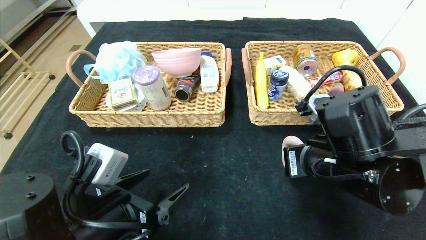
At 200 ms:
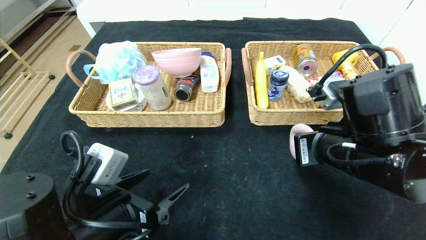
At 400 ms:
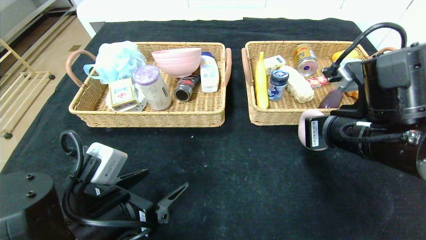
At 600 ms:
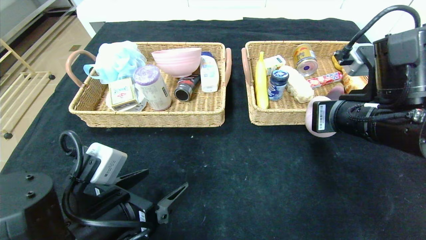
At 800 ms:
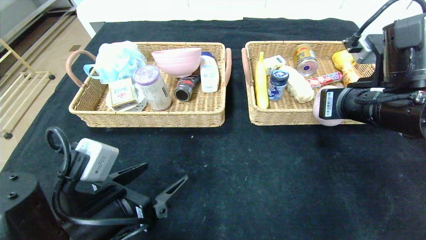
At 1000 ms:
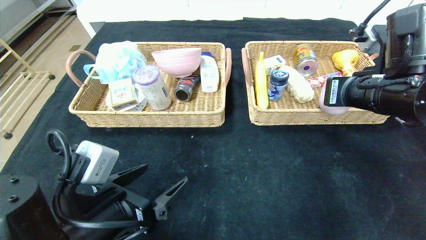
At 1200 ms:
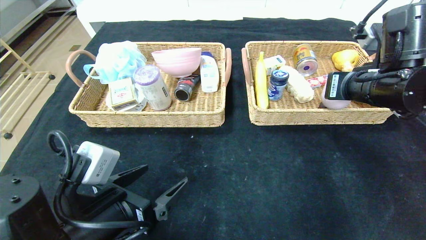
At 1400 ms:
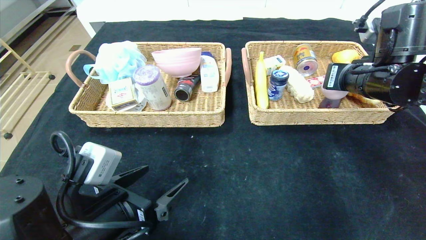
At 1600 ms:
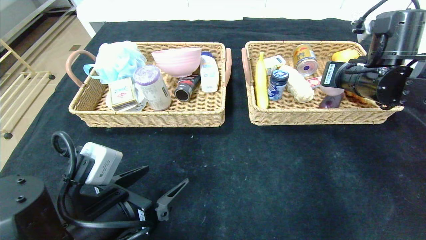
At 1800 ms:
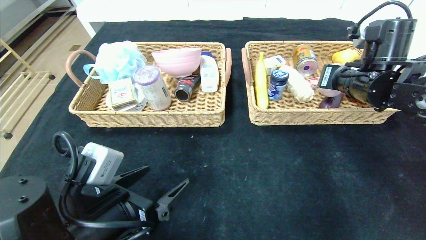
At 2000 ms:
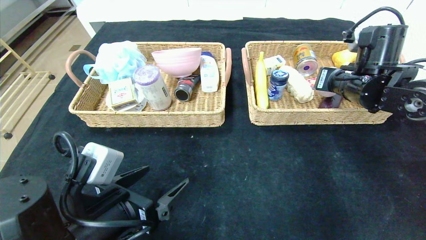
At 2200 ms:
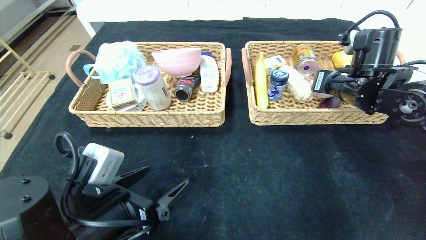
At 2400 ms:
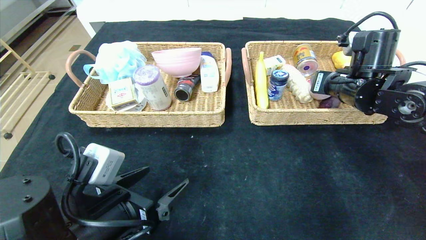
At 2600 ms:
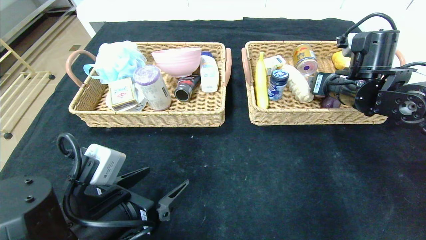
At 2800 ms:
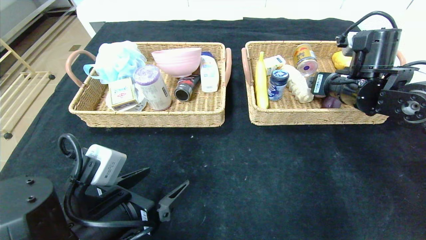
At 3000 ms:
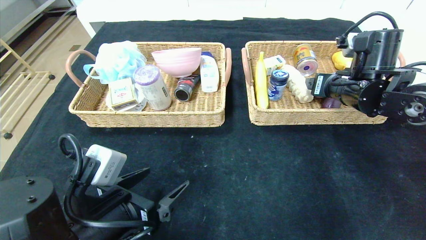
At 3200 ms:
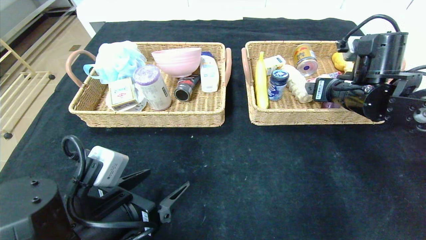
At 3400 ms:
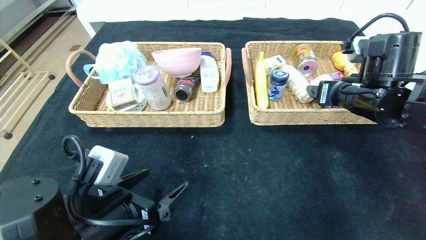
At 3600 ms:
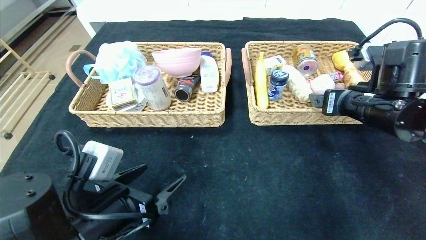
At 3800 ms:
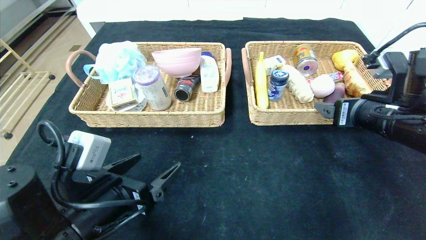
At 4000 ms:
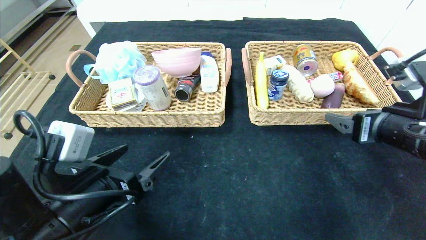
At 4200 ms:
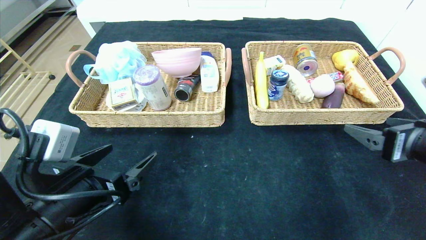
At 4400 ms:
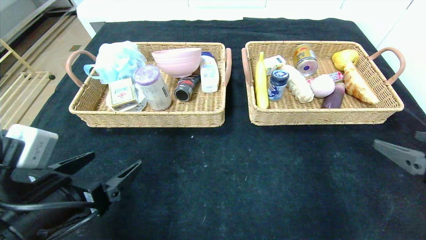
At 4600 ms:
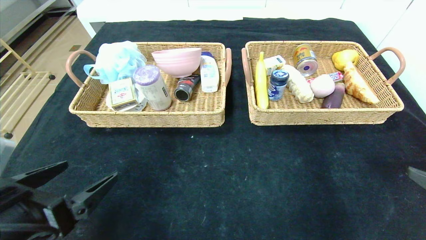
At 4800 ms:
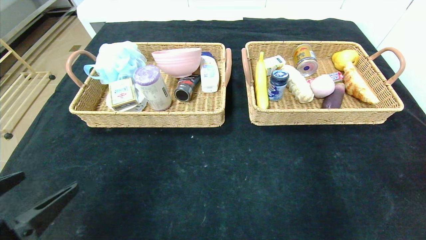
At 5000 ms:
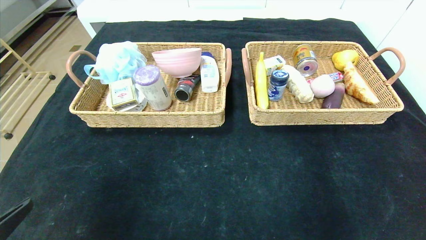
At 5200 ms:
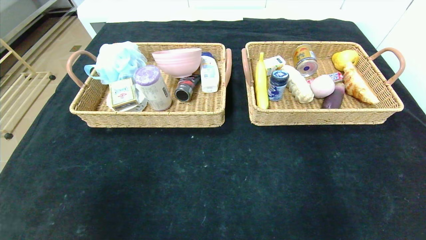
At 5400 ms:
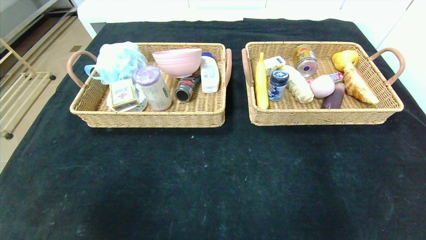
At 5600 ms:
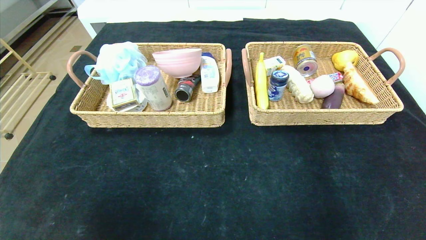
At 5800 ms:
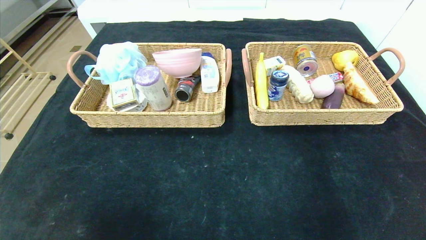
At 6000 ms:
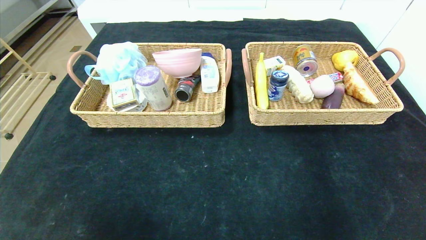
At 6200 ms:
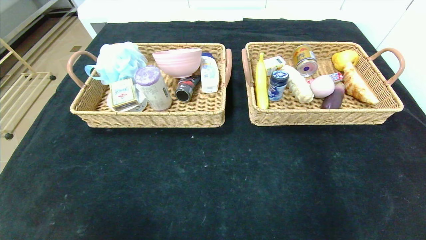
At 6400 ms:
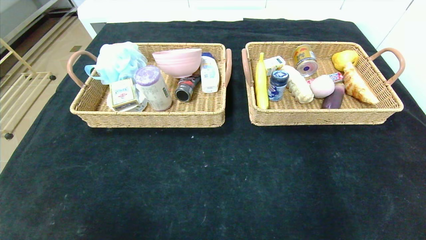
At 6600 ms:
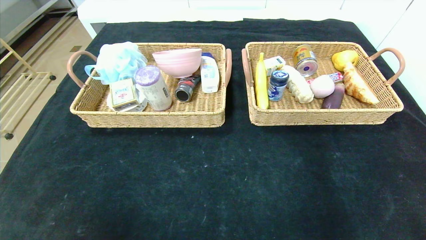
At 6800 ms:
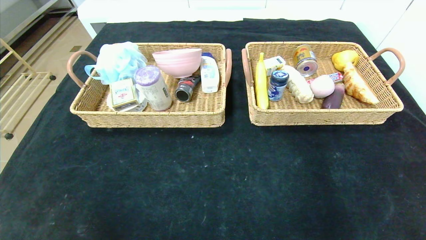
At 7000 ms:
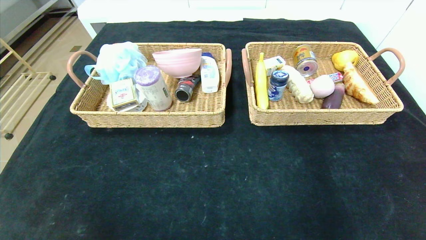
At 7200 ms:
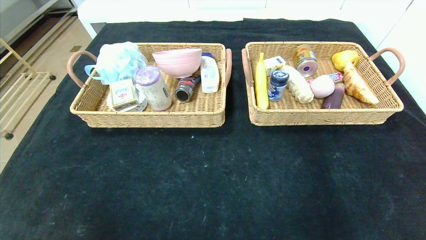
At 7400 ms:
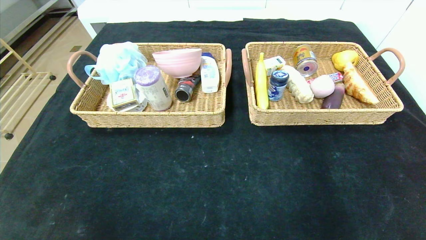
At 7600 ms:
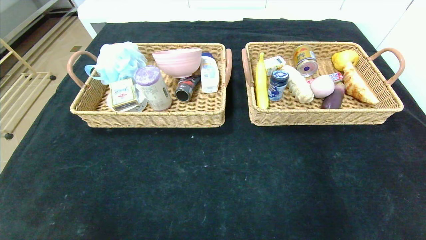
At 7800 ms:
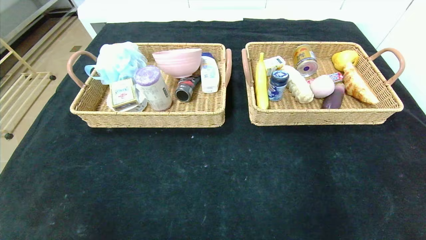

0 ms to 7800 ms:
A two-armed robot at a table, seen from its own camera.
Step, 0 ms to 2800 ms: Grasp the peach and put it in the right basket.
0 ms to 1600 ms: The right gripper is displaced forward, to the right and upward by approximately 15 cm.
1600 ms to 3200 ms: The right gripper opens up.
3200 ms to 4600 ms: The right gripper moves backward, roughly 25 cm. The left gripper shifts approximately 5 cm to the left.
4600 ms to 6200 ms: The left gripper is displaced backward by some 15 cm. The right gripper travels backward and downward by roughly 20 cm.

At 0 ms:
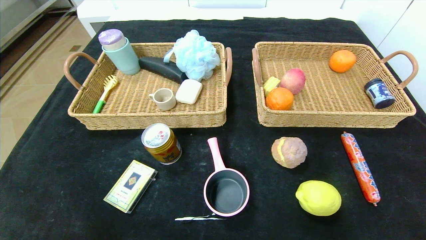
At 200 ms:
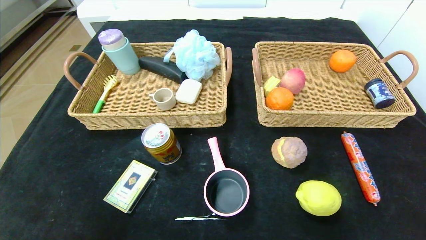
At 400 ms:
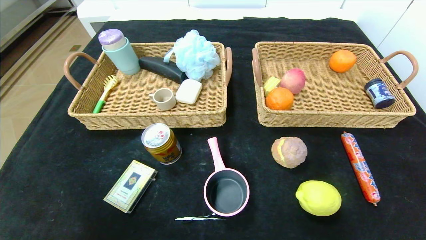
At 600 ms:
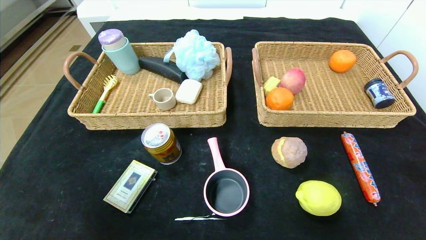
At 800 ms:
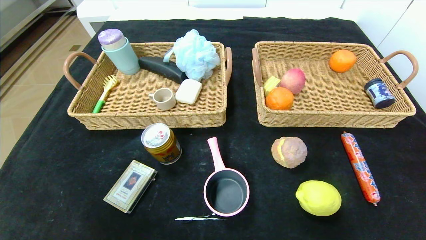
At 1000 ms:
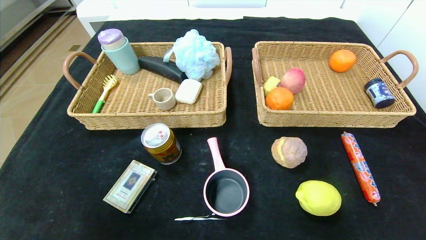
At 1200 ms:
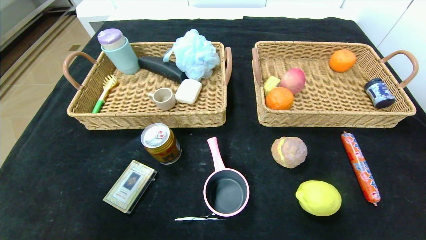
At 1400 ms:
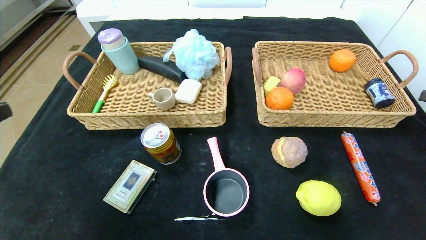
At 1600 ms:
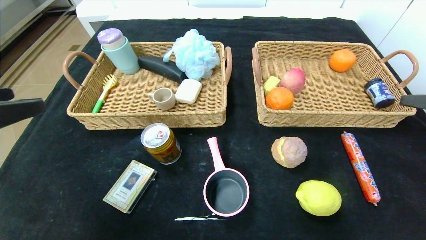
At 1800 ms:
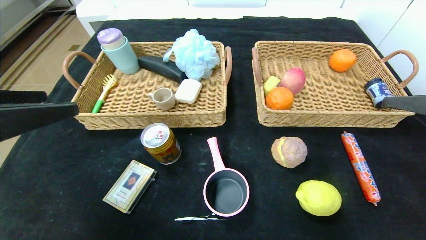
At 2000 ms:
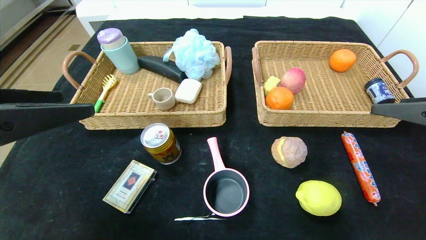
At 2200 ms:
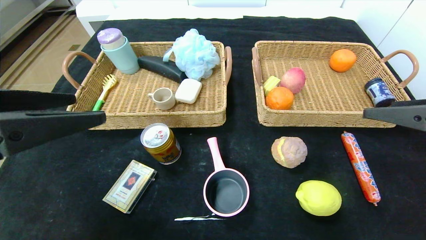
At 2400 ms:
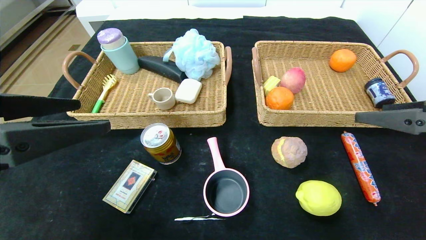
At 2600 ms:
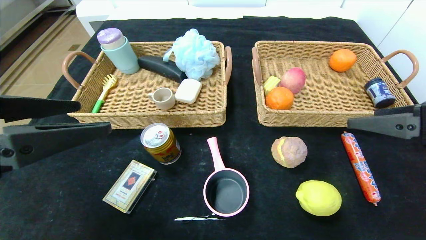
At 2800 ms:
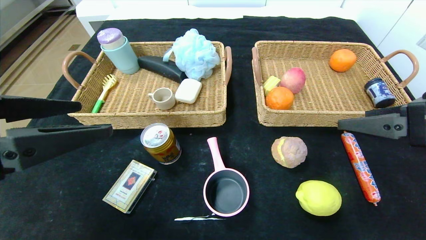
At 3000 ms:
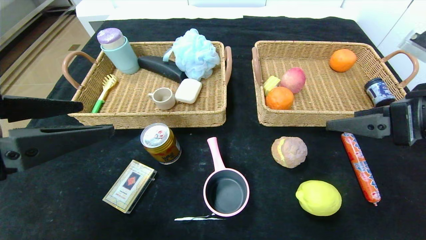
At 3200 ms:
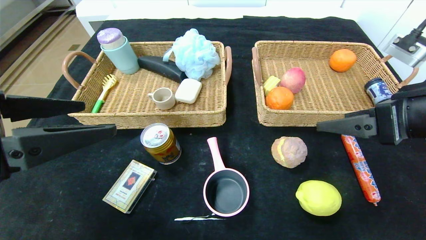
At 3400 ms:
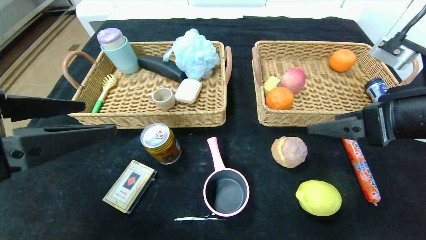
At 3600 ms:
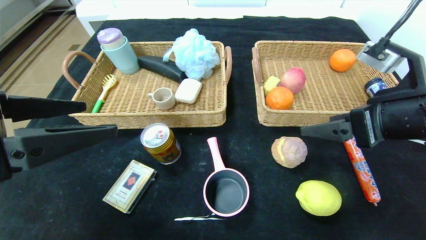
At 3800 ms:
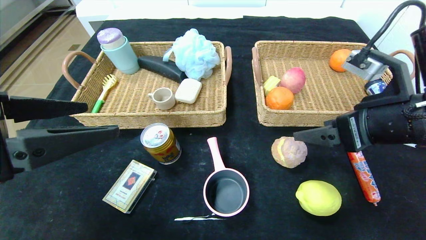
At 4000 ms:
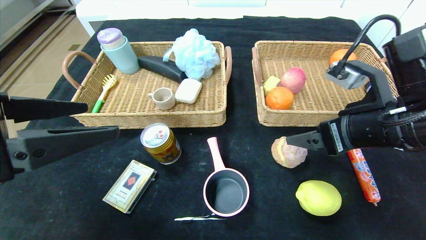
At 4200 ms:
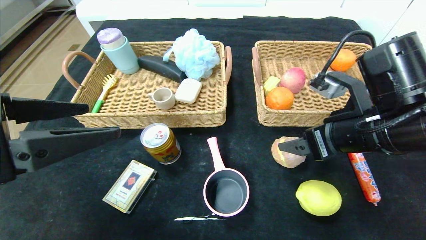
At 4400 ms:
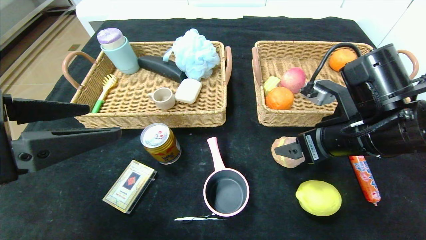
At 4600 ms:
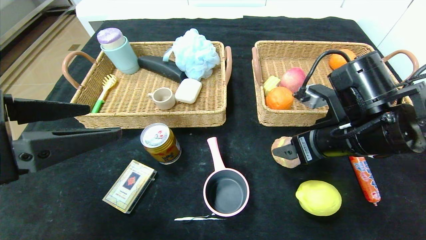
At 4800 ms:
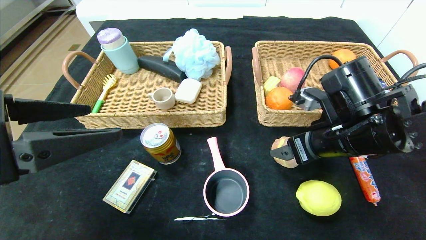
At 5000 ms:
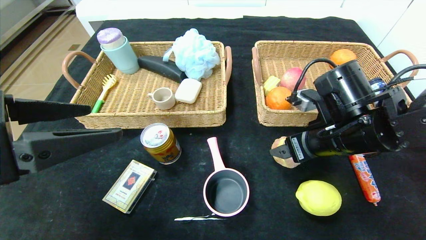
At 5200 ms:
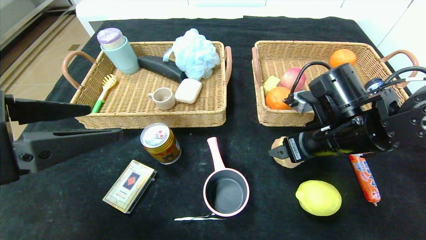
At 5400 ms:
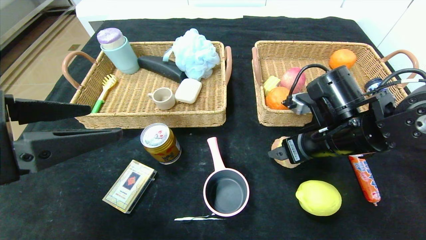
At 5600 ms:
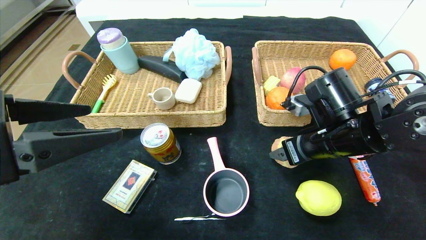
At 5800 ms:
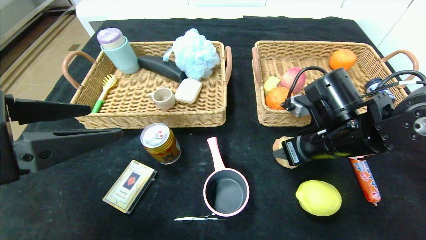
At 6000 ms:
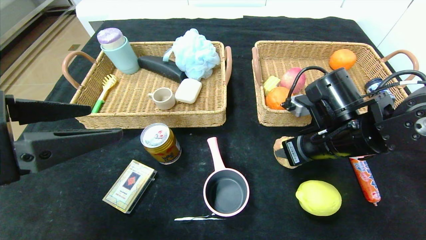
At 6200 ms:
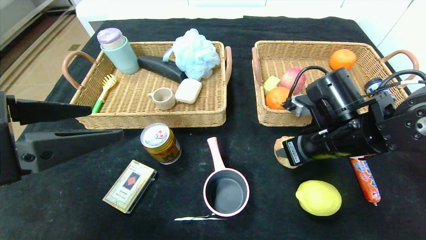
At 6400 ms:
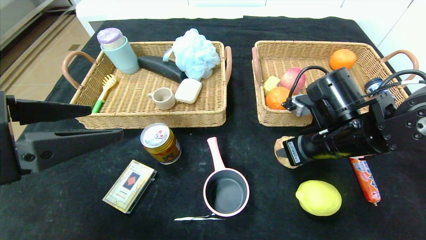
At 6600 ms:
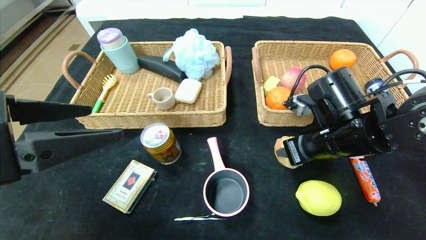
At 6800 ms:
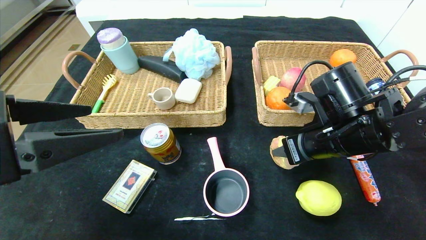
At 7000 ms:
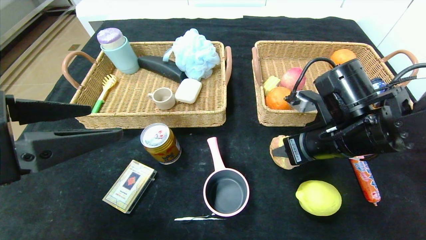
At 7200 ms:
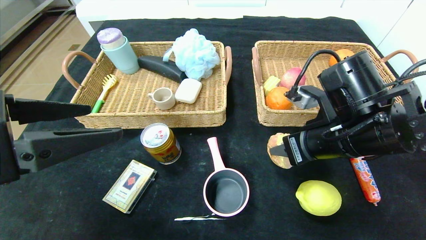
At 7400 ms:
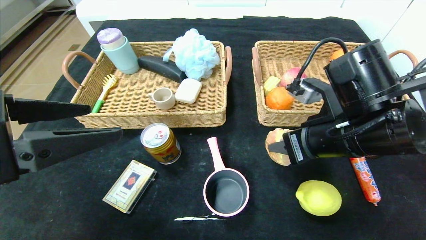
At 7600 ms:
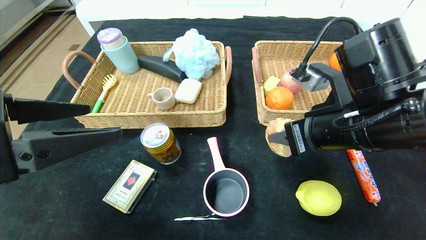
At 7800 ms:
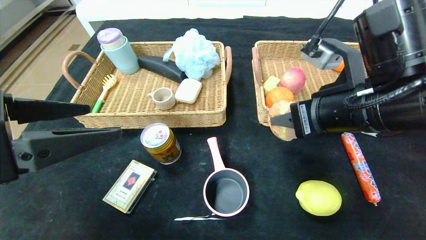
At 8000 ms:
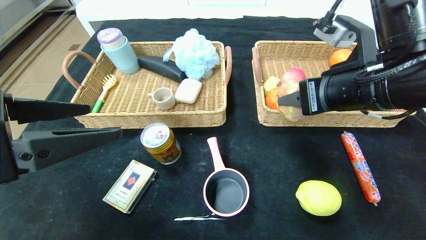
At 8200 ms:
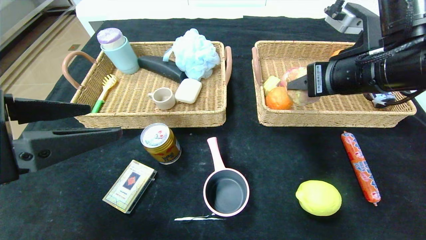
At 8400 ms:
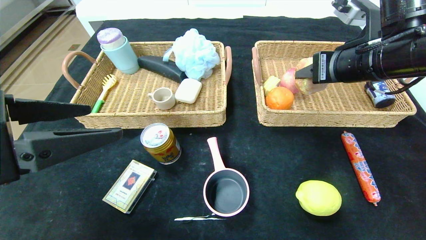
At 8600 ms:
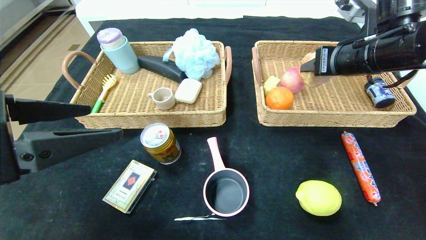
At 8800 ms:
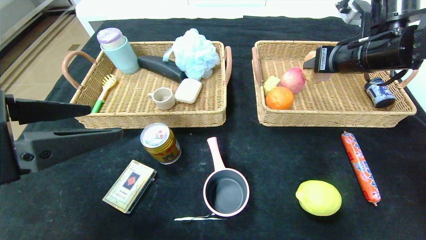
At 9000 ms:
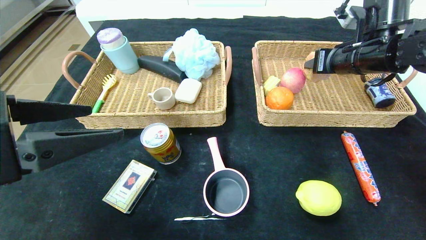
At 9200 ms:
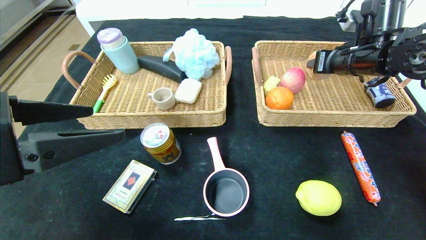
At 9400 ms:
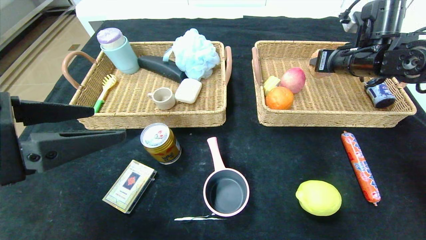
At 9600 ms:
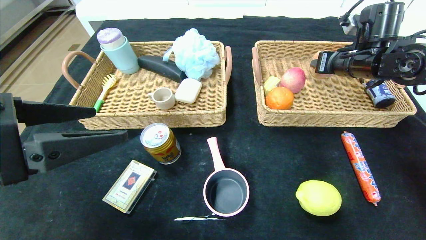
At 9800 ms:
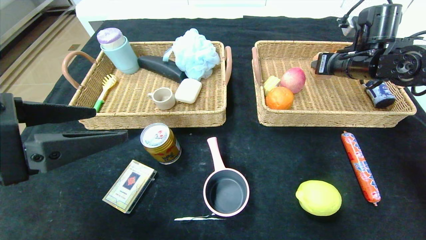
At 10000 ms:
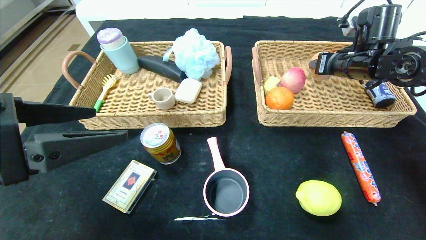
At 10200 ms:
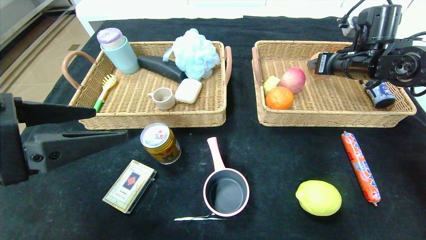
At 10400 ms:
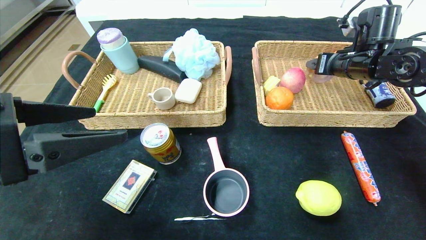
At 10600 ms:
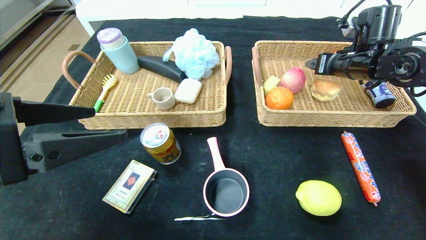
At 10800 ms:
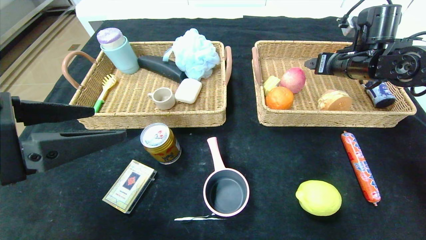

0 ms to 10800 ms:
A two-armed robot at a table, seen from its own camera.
Step, 0 ms to 10400 ms: Grasp the round bread and put it in the right basket.
0 ms to 1600 ms: Both grippers travel together upward and forward, about 30 cm.
1600 ms to 3000 ms: The right gripper is displaced to the left by some 5 cm.
3000 ms to 4600 ms: The right gripper goes about 10 cm to the left, downward and forward.
4600 ms to 6200 ms: The right gripper closes its fingers.
6200 ms to 7800 ms: The right gripper is displaced upward by approximately 10 cm.
7800 ms to 9200 ms: The right gripper travels forward and to the right by about 20 cm.
9200 ms to 10800 ms: The right gripper opens up.
